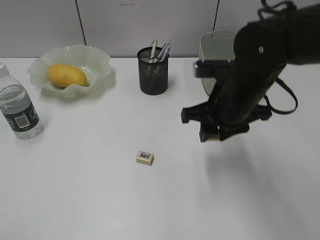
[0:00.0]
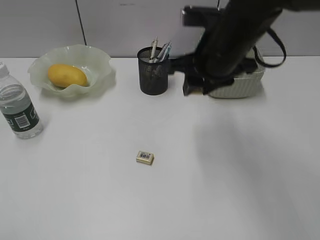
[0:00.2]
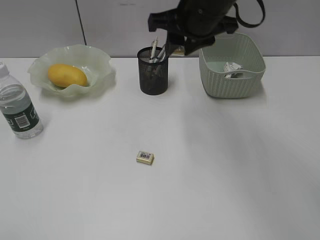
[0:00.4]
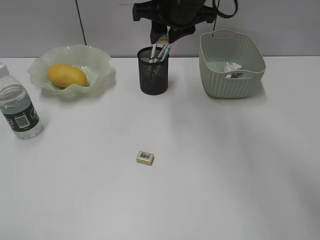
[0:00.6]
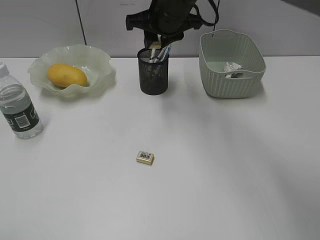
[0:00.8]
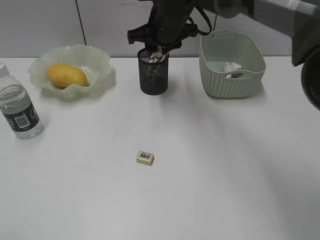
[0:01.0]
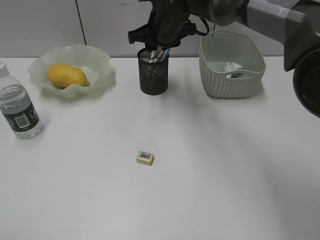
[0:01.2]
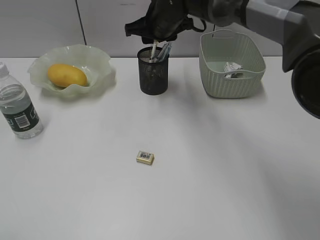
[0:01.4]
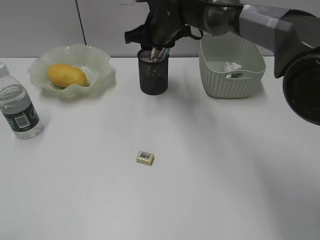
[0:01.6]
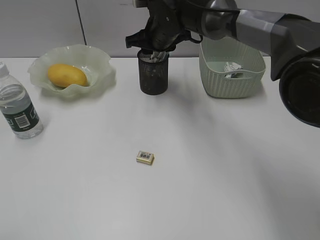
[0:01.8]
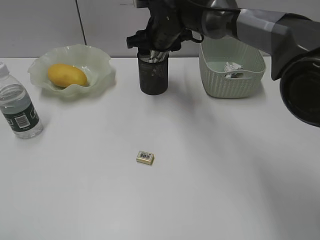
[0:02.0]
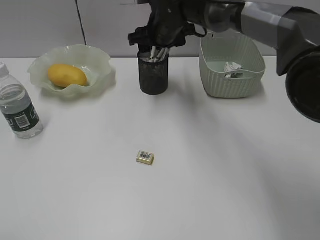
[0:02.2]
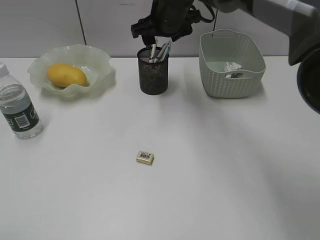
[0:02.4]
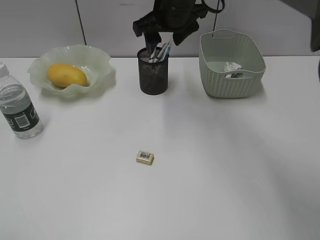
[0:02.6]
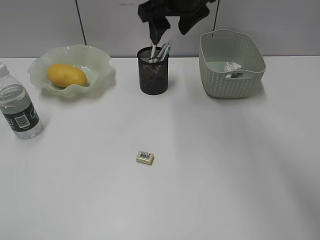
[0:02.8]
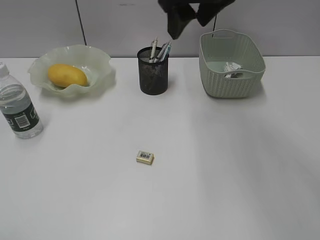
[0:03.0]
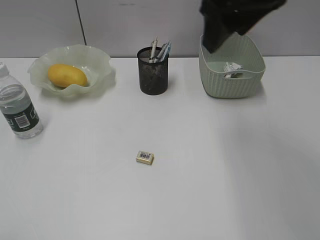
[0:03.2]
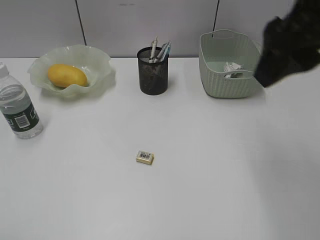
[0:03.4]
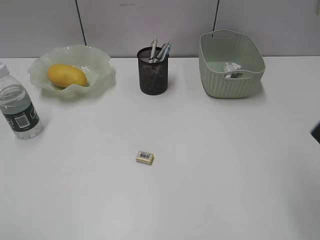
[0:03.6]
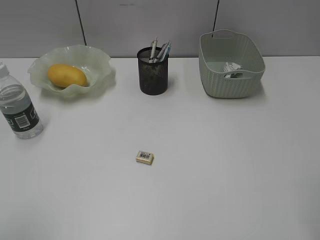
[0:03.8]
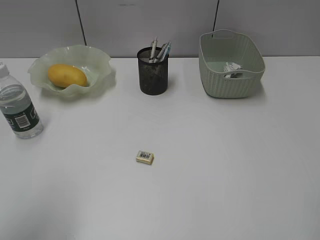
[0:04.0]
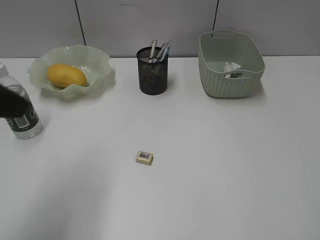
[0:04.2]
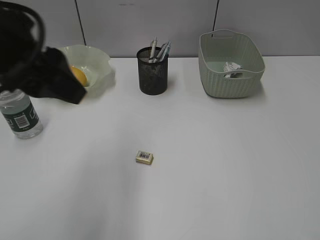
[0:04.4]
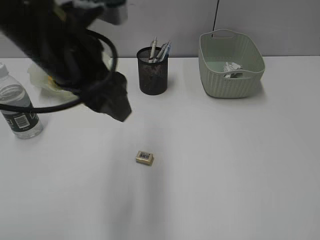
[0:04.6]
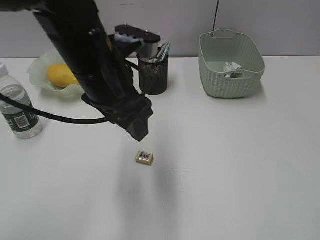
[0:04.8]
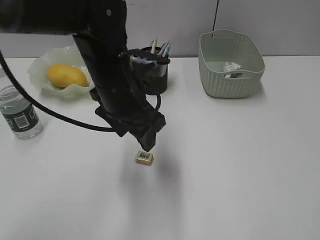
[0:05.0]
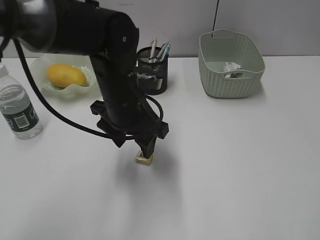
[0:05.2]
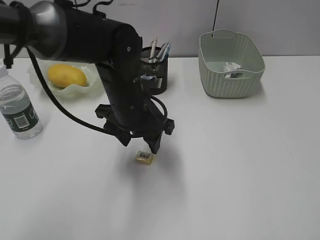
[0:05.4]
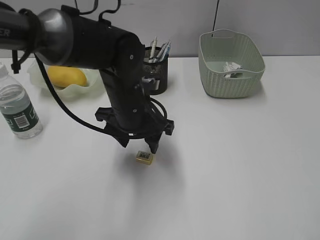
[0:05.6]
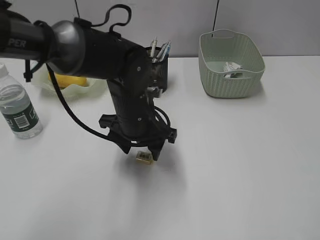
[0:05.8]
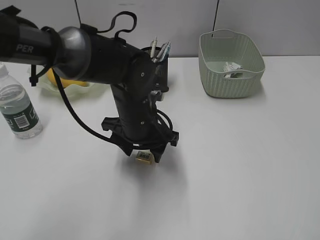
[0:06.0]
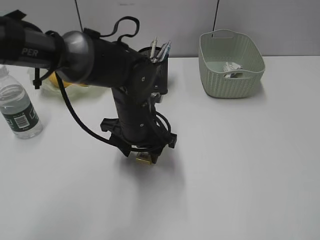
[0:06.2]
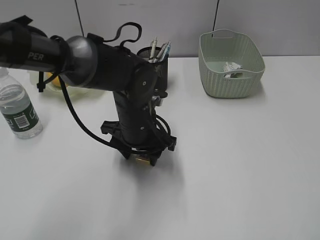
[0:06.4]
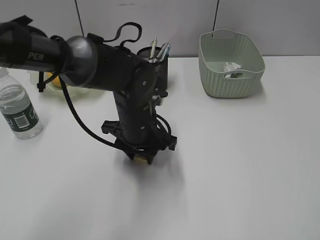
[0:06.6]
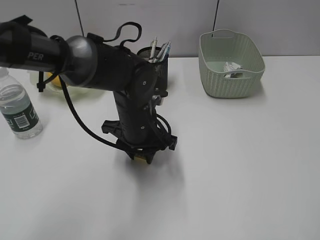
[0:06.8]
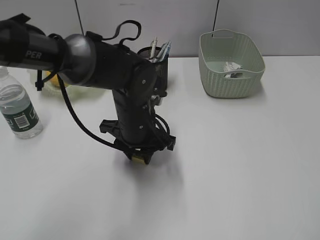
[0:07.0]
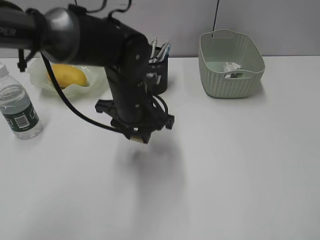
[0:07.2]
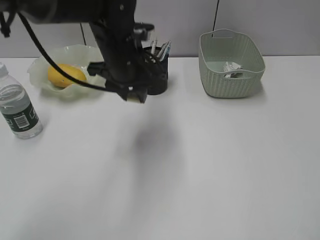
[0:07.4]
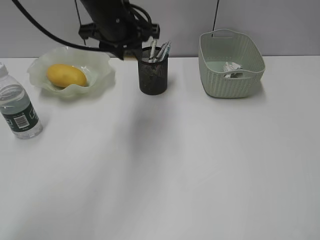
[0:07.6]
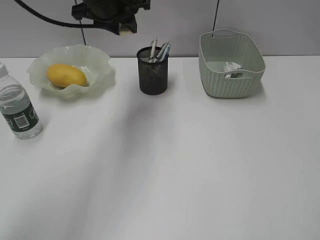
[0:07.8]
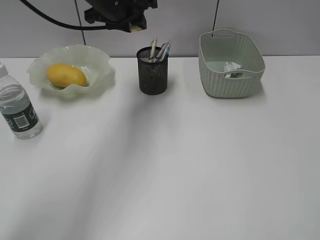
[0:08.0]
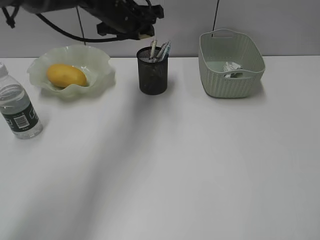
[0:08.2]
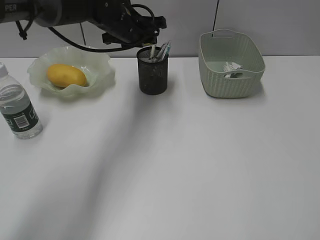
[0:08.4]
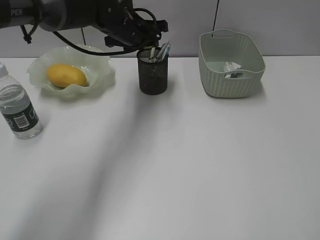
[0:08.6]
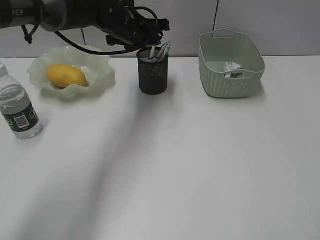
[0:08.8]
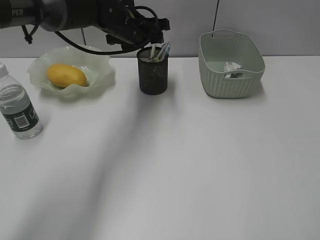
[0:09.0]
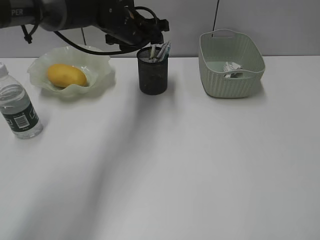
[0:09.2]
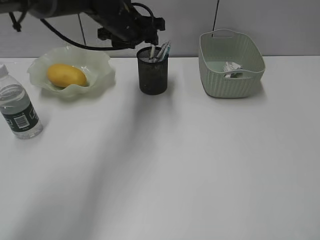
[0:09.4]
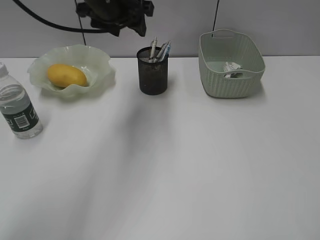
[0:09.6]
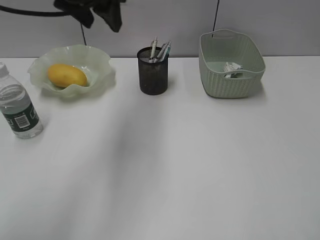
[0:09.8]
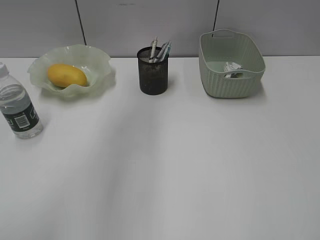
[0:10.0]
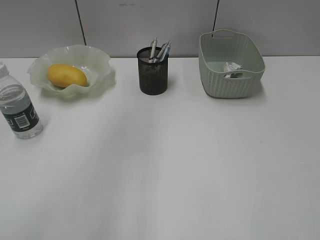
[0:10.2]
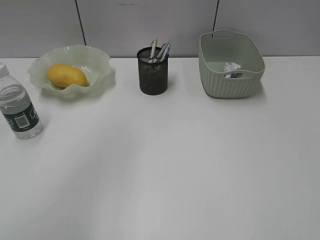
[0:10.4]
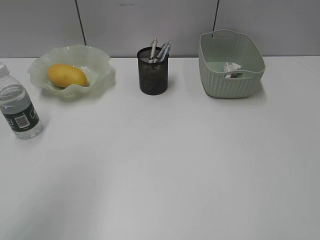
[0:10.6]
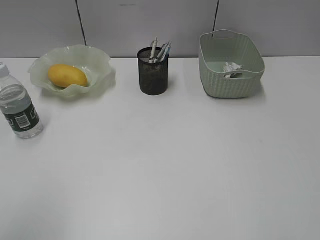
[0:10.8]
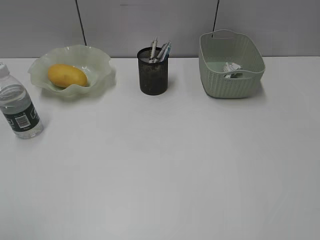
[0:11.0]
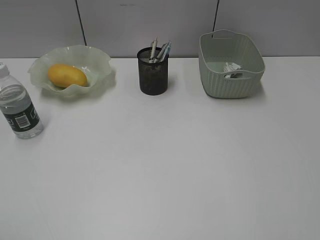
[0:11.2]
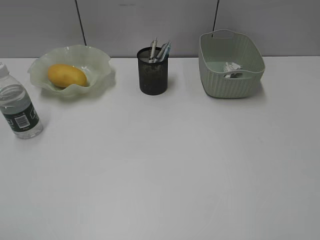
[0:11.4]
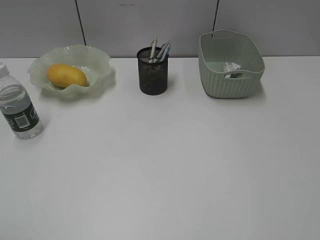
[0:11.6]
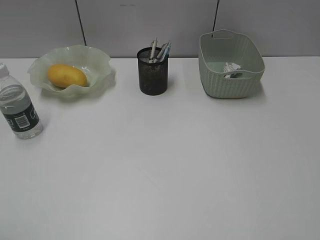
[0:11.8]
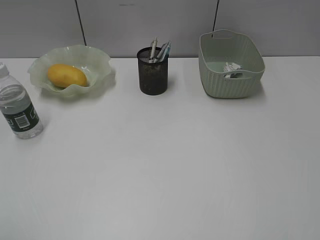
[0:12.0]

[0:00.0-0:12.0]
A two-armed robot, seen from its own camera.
Step, 0:00.0 to 0:02.0: Place the eraser in pen holder with right gripper.
Step, 0:02.2 to 0:06.6: Grasp the eraser with left gripper.
Step, 0:06.8 to 0:09.0: Place the eraser in pen holder with left gripper.
0:00.0 to 0:01.6: The right gripper travels forward and to the left by about 20 cm.
0:01.6 to 0:03.0: The right gripper moves upward, backward and to the right, about 20 cm, and opens up.
0:03.0 to 0:04.4: The left gripper moves forward and to the right, some 25 cm; the right gripper heads backward and to the right, covering approximately 35 cm.
0:04.4 to 0:06.0: The left gripper shifts roughly 25 cm downward, to the right and forward.
0:06.0 to 0:07.6: The left gripper travels upward and forward by some 15 cm, and closes its fingers.
0:07.6 to 0:09.0: The left gripper moves forward, some 10 cm.
0:09.0 to 0:10.4: The left gripper travels backward, upward and to the left by some 40 cm.

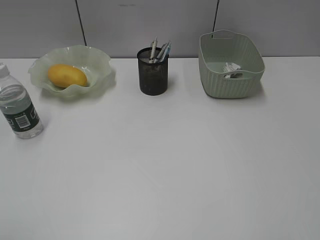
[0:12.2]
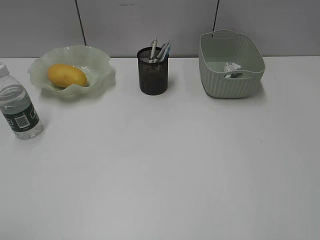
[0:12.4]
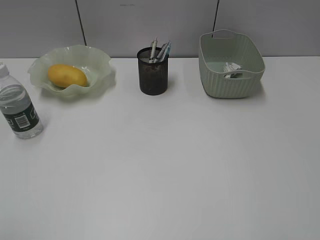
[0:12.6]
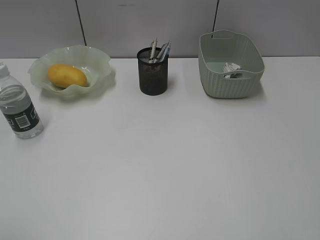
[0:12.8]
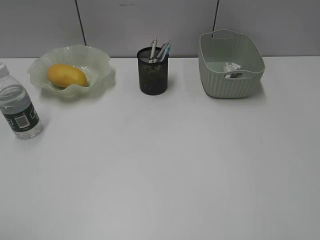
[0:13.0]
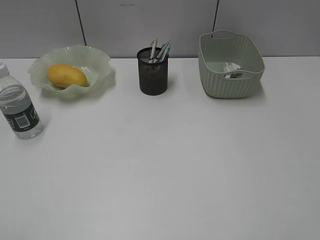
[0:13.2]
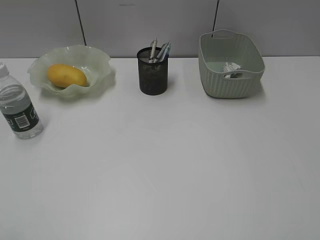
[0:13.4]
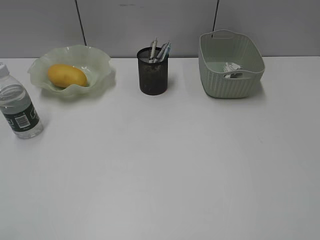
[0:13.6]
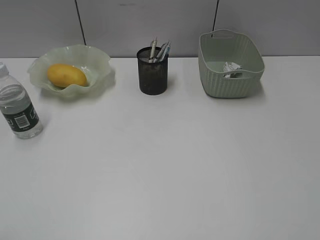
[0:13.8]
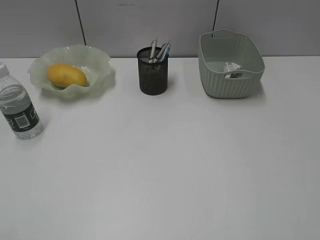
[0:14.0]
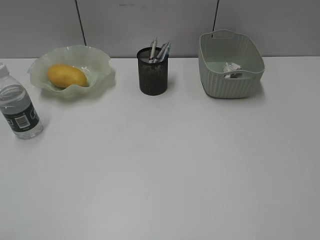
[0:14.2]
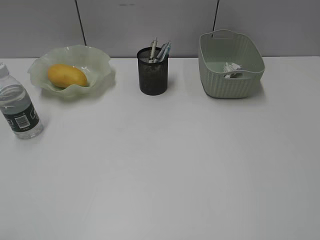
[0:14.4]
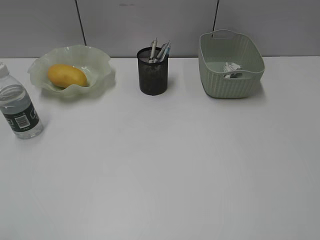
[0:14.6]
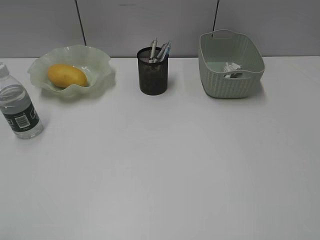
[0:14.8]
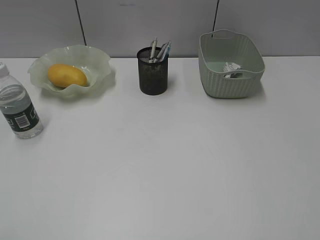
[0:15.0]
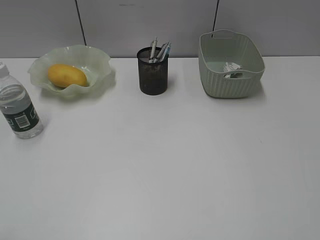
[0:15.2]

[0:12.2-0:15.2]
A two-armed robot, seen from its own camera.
0:13.8 to 0:15.2: Both grippers stay about where they are.
